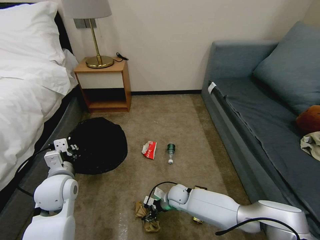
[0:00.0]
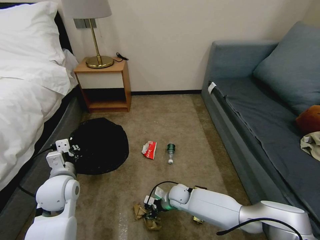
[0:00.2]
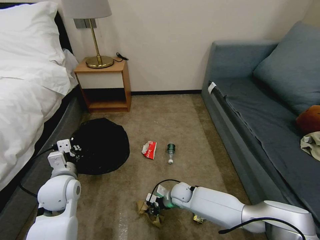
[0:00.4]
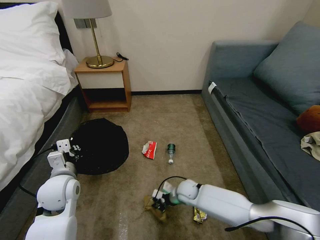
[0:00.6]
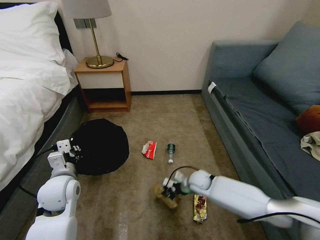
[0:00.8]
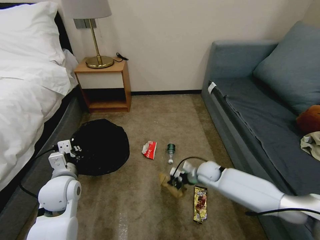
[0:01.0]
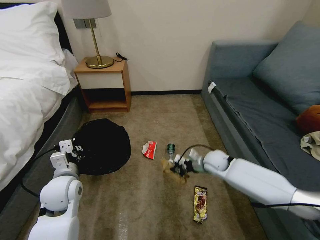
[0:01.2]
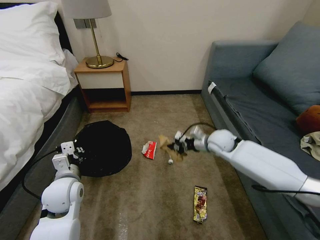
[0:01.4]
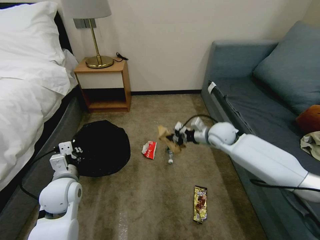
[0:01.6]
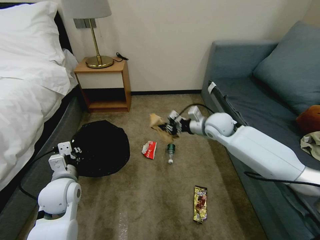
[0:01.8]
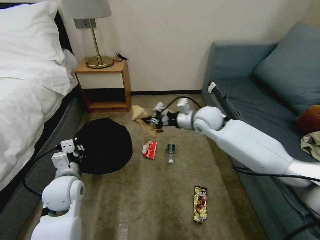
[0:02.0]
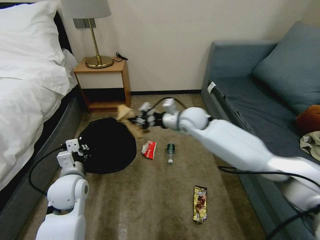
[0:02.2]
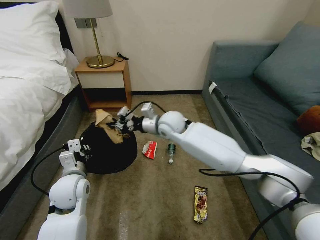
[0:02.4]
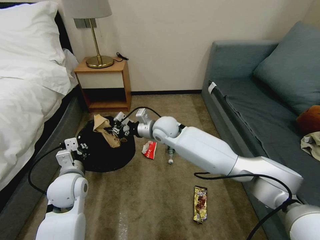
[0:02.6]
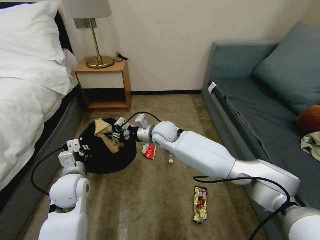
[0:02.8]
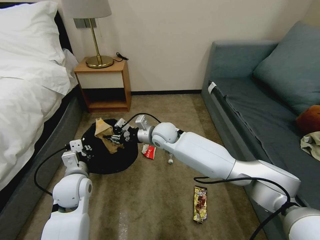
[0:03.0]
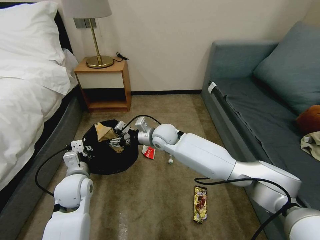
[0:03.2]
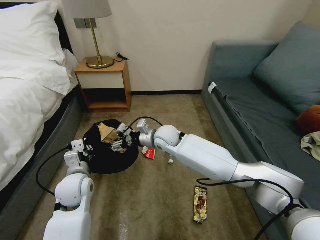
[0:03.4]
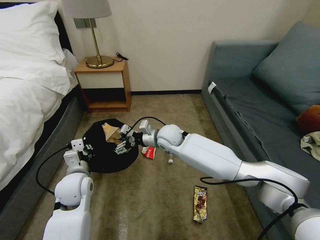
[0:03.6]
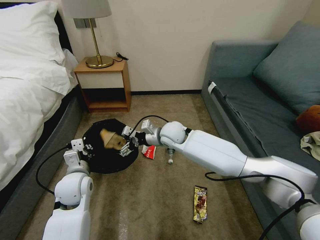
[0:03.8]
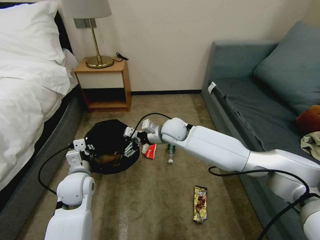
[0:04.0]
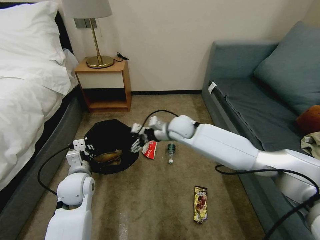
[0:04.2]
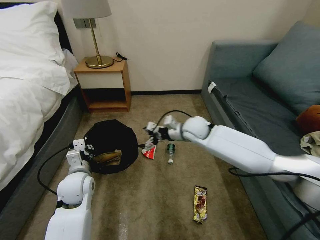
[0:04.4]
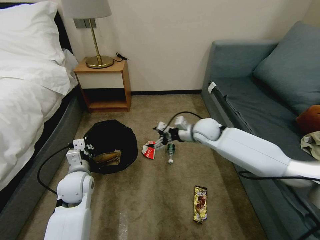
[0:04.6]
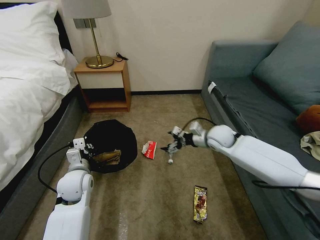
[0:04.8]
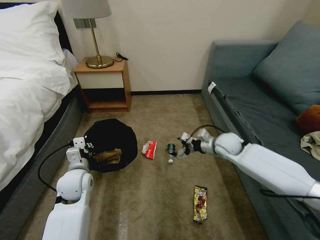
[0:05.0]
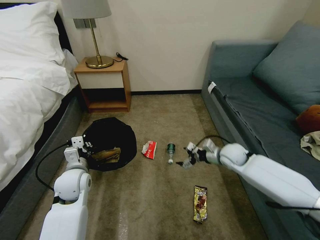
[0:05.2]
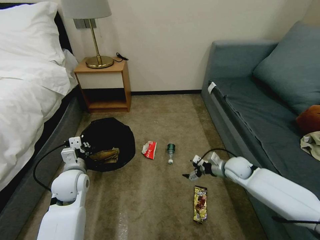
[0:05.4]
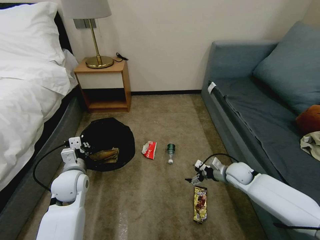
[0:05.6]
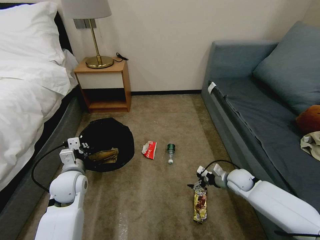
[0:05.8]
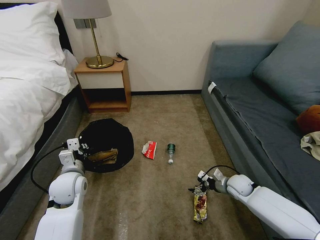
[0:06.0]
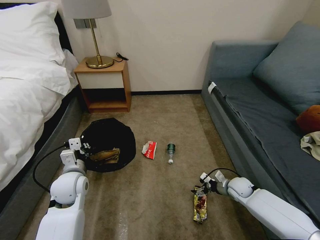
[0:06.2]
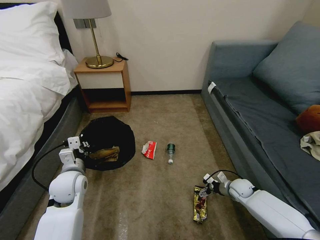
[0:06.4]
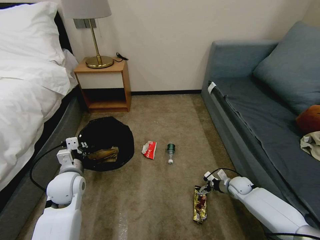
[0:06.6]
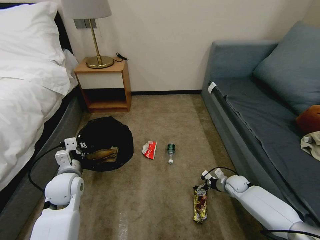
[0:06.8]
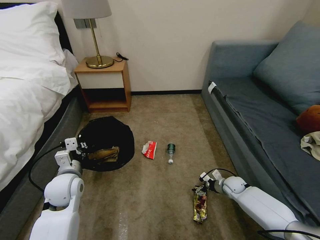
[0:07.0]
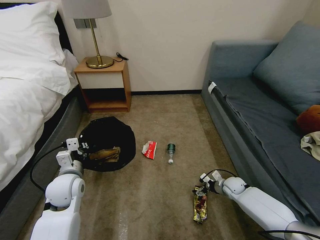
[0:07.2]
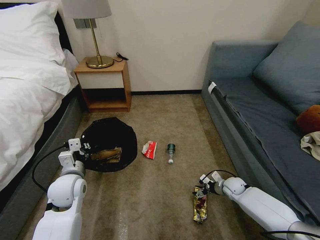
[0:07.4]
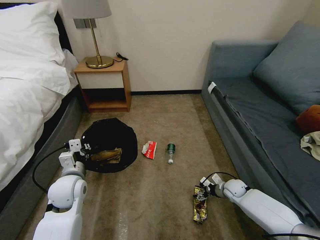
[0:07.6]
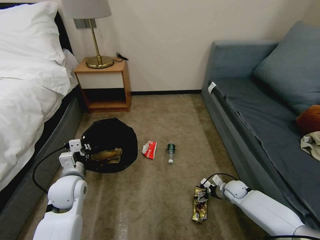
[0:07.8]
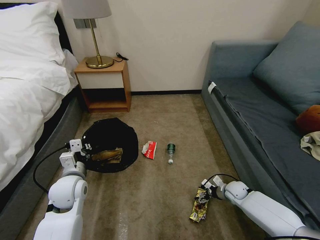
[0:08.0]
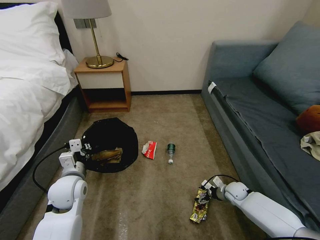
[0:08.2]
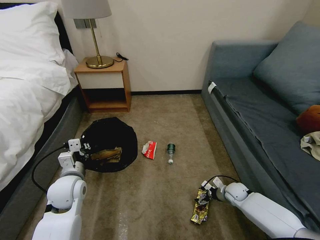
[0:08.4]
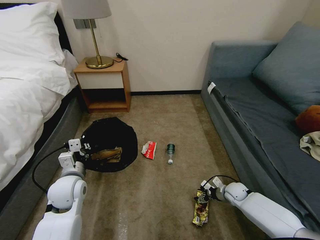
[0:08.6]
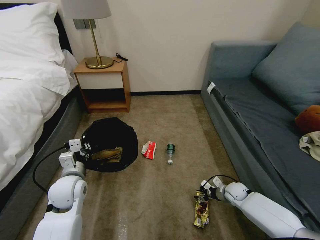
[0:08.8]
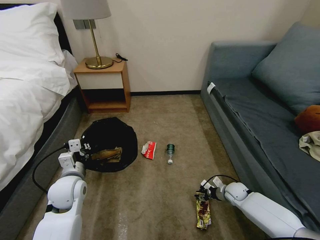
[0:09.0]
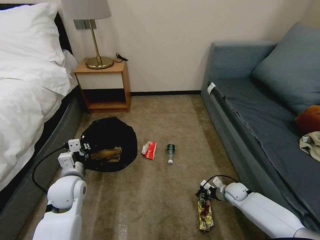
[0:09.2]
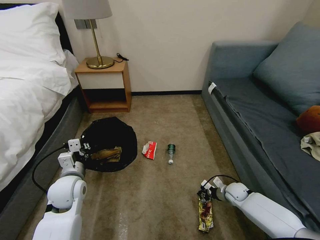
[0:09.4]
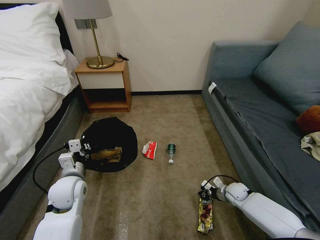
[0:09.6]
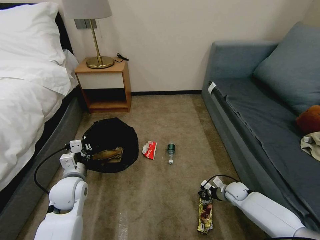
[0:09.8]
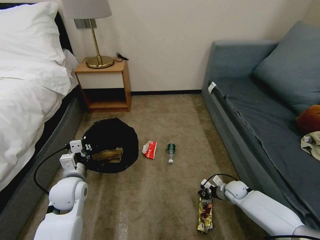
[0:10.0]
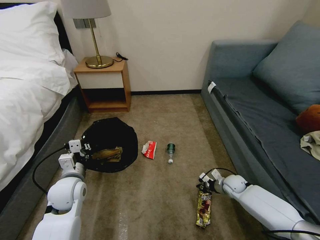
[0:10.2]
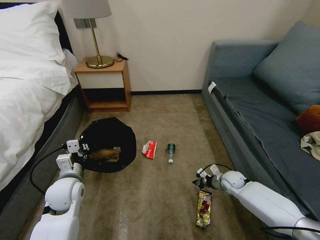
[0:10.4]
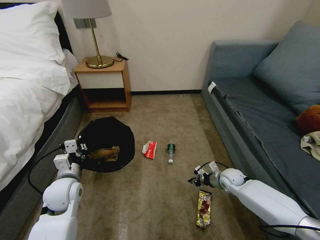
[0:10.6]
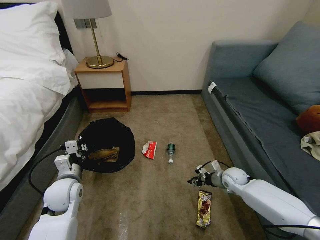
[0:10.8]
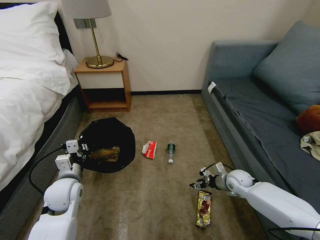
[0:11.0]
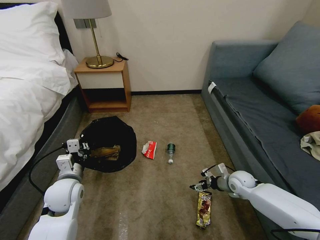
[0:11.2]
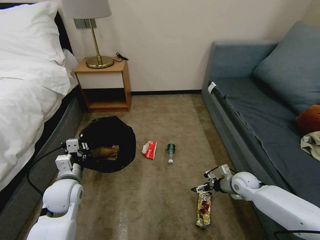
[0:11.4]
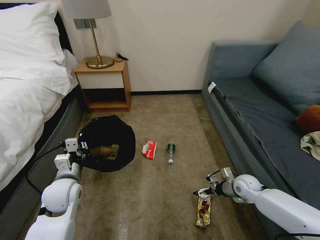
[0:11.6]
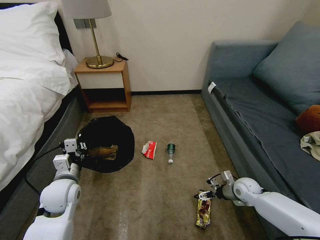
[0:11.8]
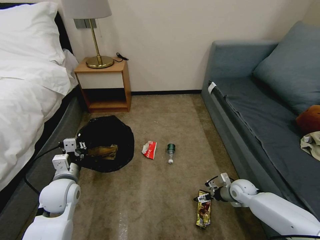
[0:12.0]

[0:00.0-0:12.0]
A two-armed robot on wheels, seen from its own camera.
Task of the whole recording: Pick up the trash bin, then pick up the garbage on the floor and place it into the trash bin.
0:00.0 to 0:01.6: The right gripper moves upward, to the right and forward, roughly 35 cm, and closes.
0:01.6 to 0:03.0: The right gripper is displaced to the left by approximately 20 cm.
0:03.0 to 0:04.4: The right gripper travels to the right by some 10 cm, and opens.
0:04.4 to 0:06.0: The right gripper heads downward, to the right and backward, covering some 35 cm.
0:06.0 to 0:07.6: The right gripper shifts roughly 5 cm downward.
0:07.6 to 0:09.0: The right gripper closes its fingers.
0:09.0 to 0:10.4: The right gripper shifts by roughly 5 cm, and closes.
0:10.4 to 0:12.0: The right gripper opens.

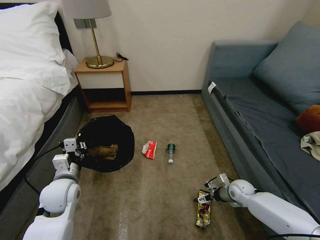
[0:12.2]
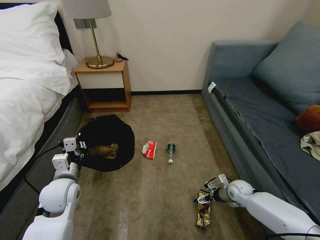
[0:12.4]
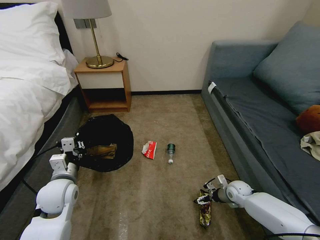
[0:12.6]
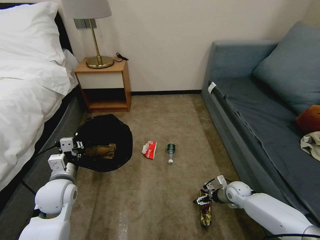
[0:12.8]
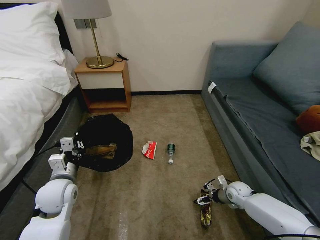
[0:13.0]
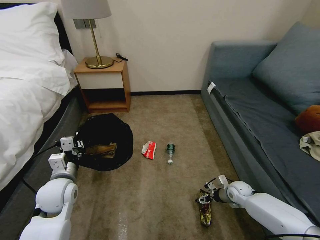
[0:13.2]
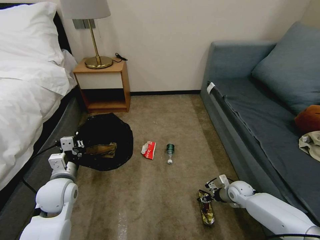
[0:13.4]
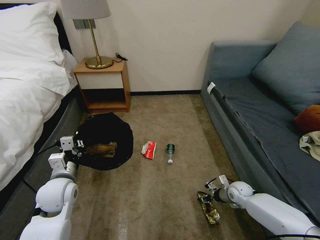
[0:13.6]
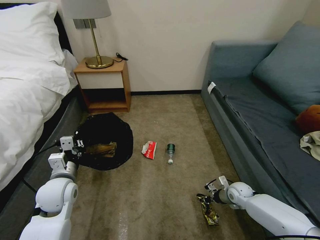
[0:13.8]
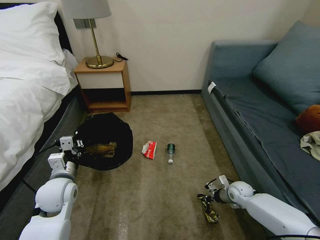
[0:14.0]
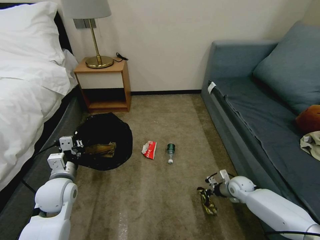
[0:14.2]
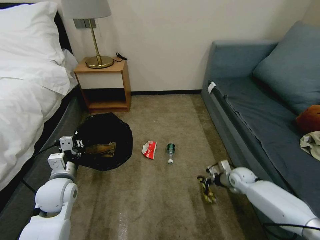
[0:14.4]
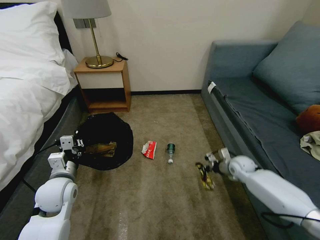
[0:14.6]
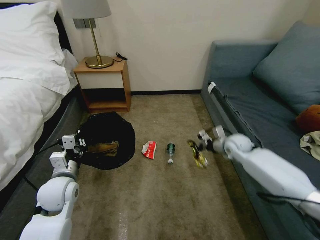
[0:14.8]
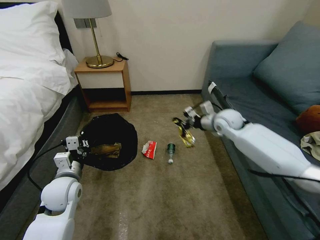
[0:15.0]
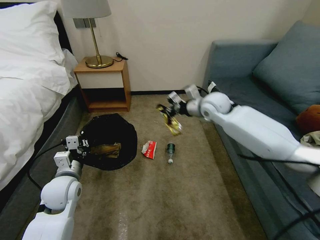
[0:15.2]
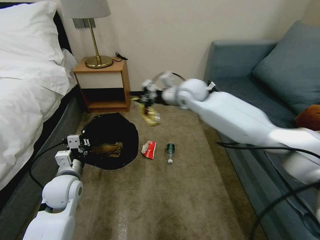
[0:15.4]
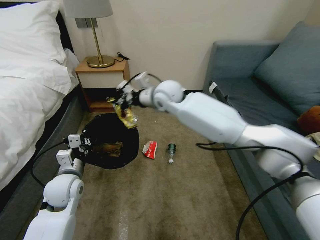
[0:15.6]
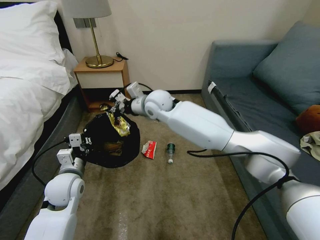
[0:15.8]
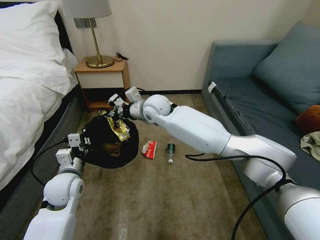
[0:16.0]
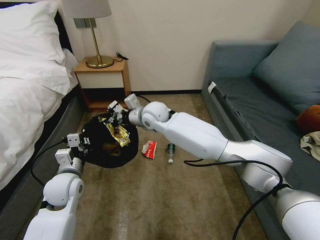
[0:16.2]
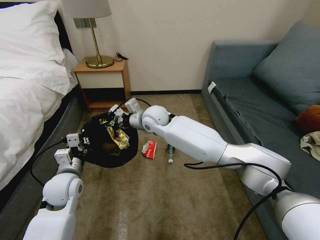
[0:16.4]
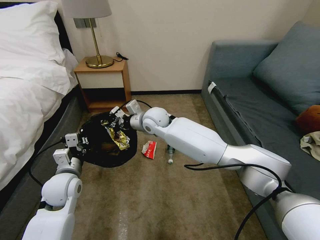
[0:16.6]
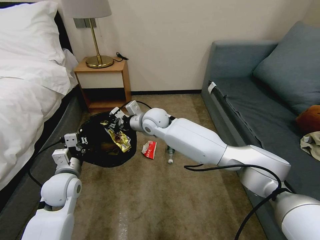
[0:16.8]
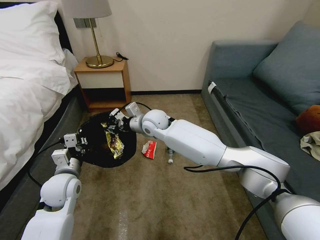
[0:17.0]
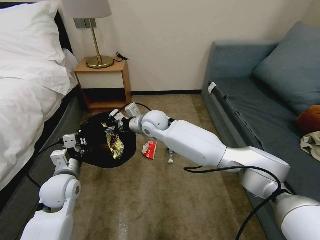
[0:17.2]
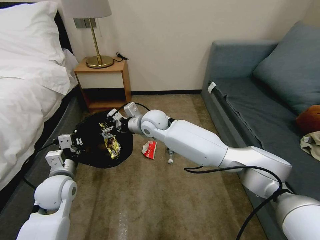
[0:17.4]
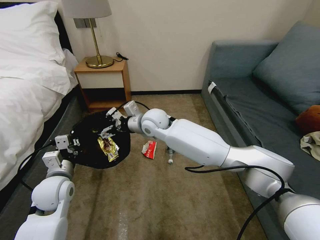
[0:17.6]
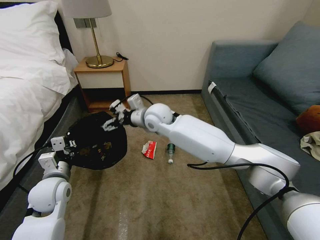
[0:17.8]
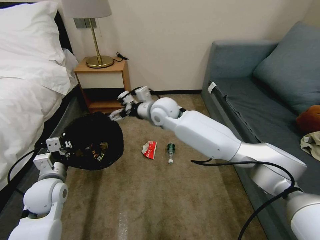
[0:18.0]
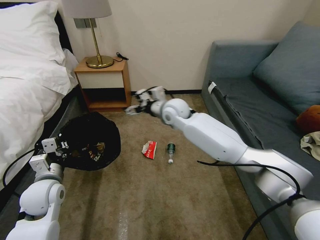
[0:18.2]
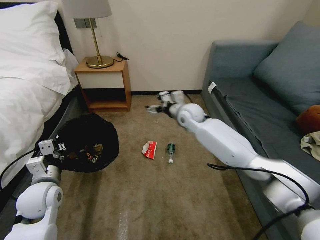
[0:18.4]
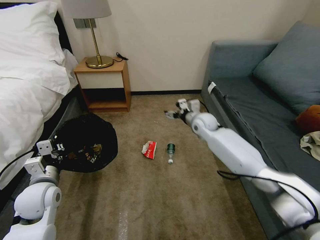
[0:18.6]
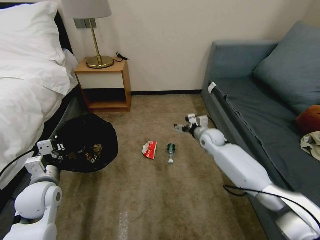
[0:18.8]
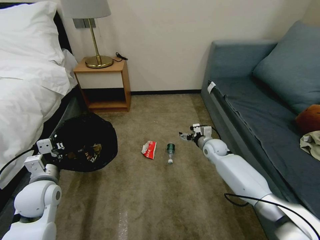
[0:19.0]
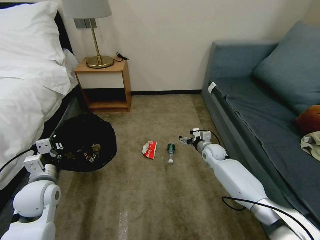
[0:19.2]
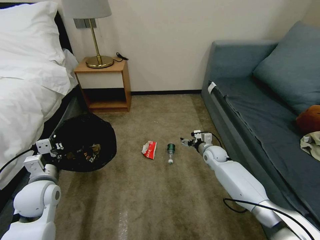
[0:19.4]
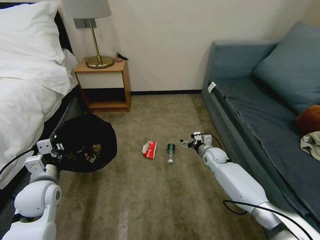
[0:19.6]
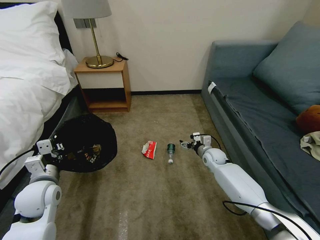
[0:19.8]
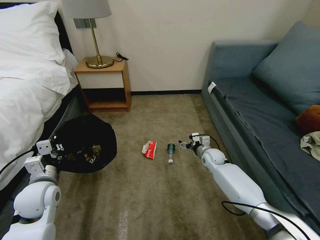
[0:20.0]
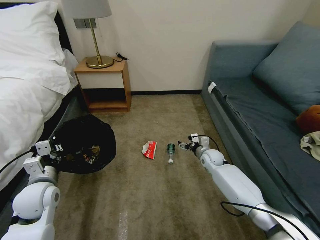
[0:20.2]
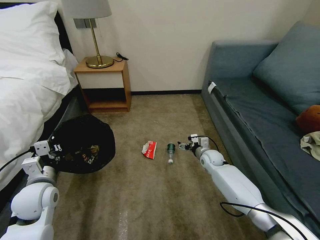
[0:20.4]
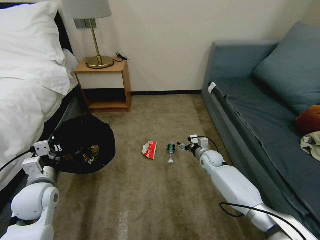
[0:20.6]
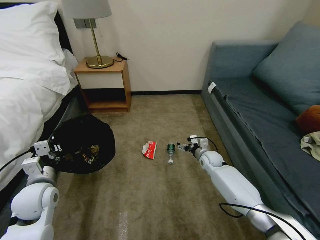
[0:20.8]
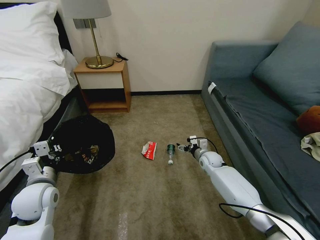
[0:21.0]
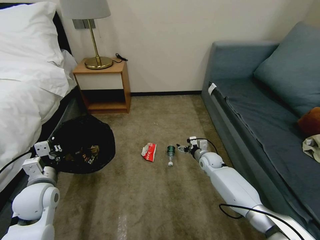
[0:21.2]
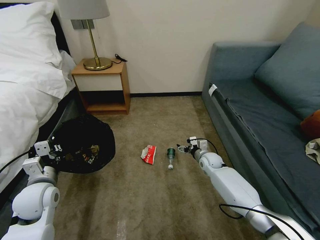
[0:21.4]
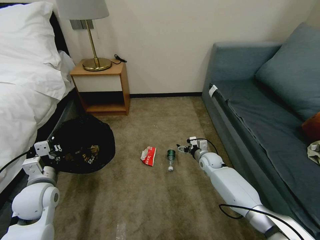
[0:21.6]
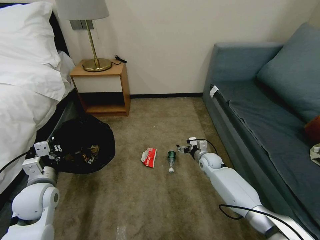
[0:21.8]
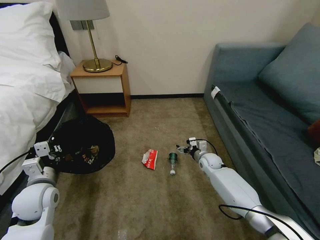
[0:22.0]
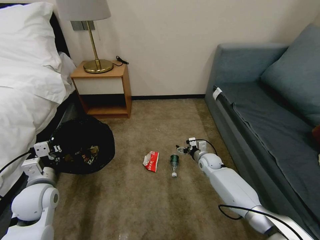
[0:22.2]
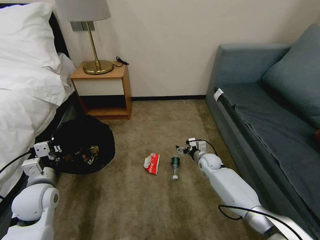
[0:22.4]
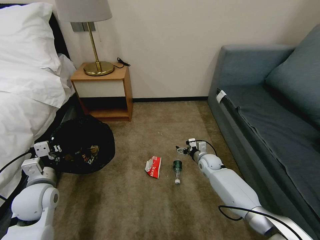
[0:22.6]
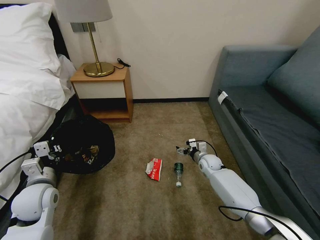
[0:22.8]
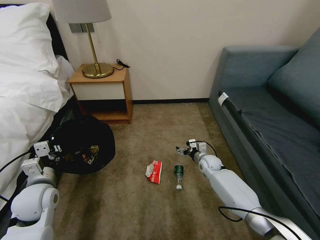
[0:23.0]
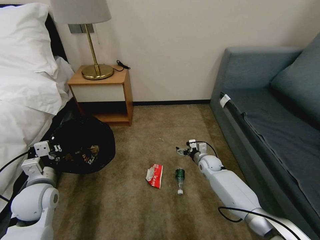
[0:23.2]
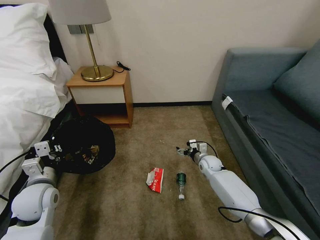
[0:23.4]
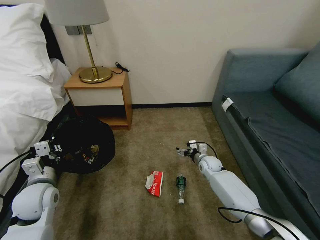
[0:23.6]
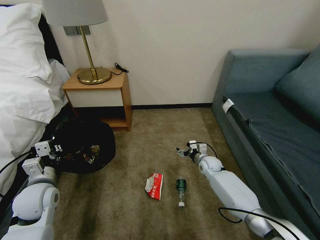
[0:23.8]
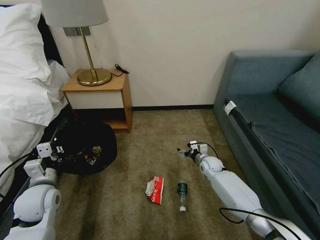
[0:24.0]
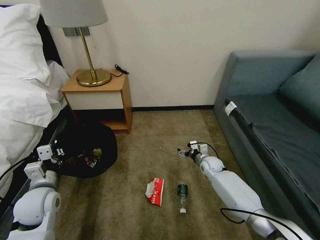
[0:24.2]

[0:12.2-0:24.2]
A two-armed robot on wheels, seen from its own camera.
Task of the whole recording: Pick up the trash bin, then pick up the garbage on the floor and place it into the trash bin.
0:12.2 to 0:13.8: The right gripper closes.
0:13.8 to 0:15.2: The right gripper shifts some 40 cm upward, forward and to the left.
0:15.2 to 0:16.6: The right gripper heads to the left, covering roughly 25 cm.
0:16.6 to 0:18.2: The left gripper changes place by some 5 cm; the right gripper heads to the right, covering some 10 cm, and opens up.
0:18.2 to 0:19.8: The right gripper shifts about 30 cm downward and to the right.
0:19.8 to 0:21.2: The grippers make only small movements.
0:21.2 to 0:22.6: Neither gripper changes place.
